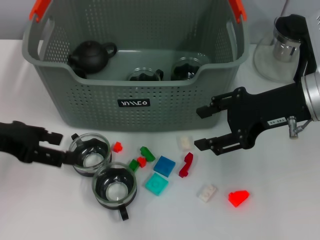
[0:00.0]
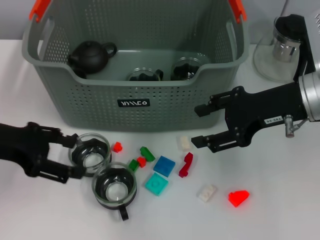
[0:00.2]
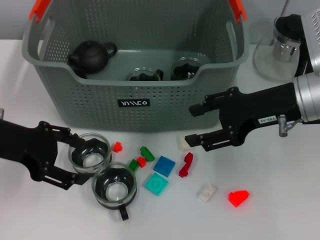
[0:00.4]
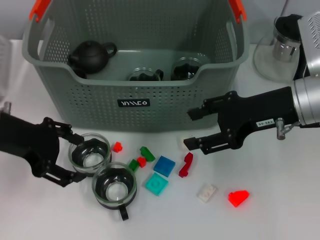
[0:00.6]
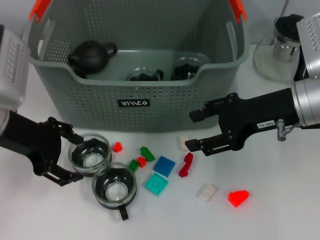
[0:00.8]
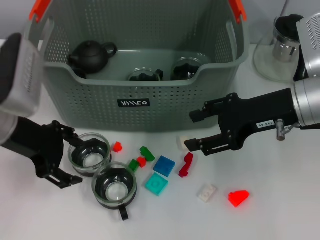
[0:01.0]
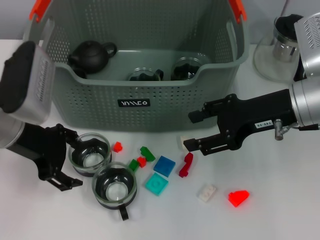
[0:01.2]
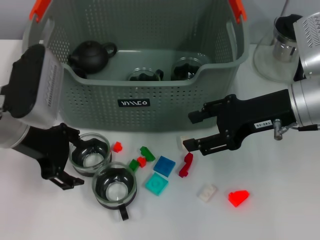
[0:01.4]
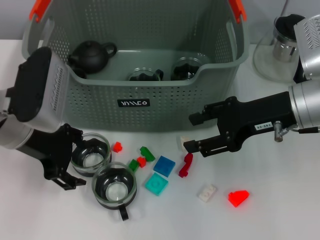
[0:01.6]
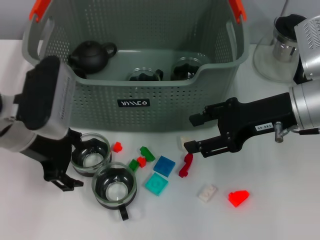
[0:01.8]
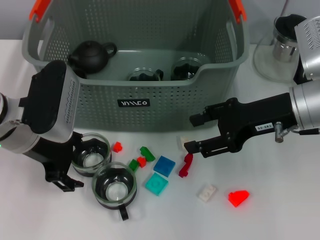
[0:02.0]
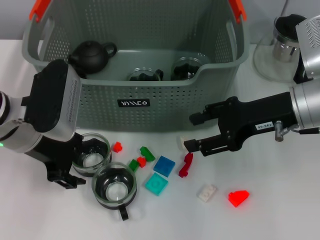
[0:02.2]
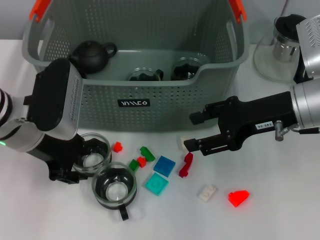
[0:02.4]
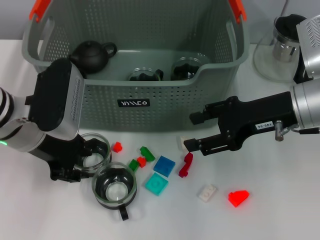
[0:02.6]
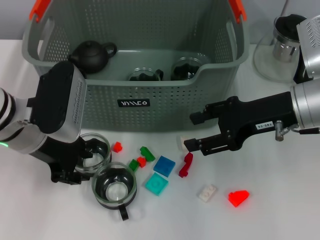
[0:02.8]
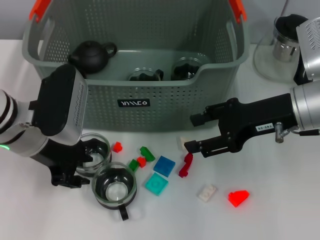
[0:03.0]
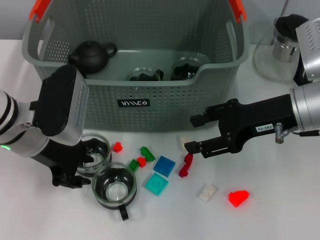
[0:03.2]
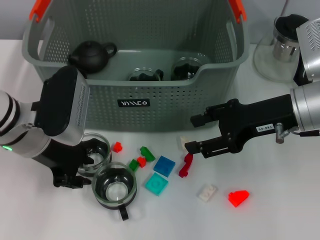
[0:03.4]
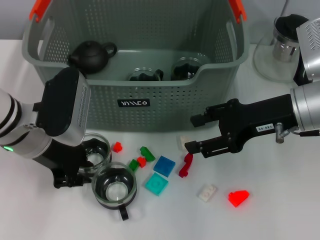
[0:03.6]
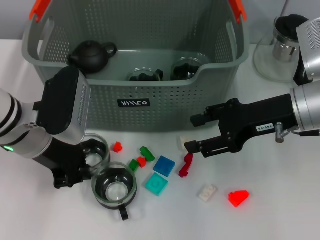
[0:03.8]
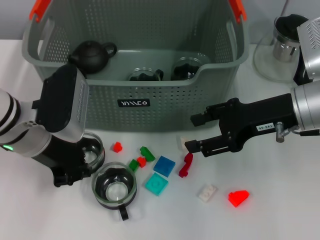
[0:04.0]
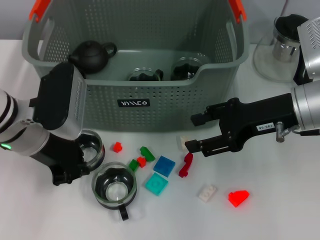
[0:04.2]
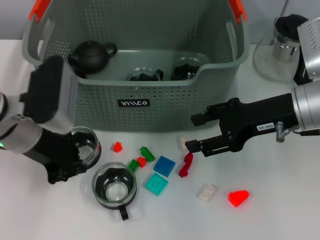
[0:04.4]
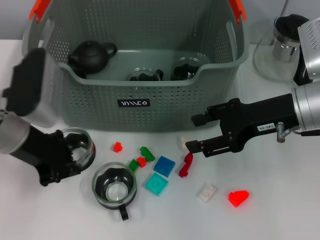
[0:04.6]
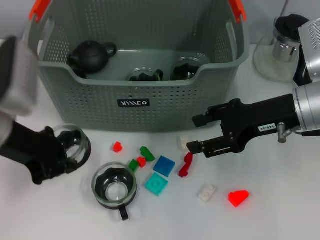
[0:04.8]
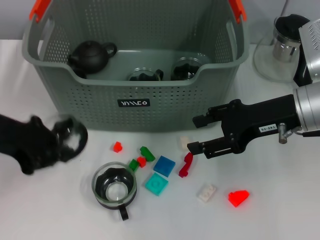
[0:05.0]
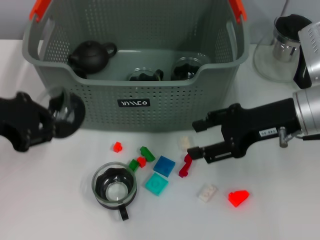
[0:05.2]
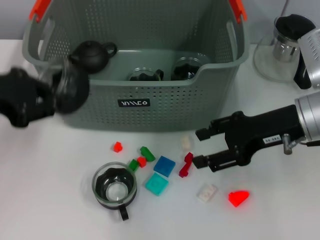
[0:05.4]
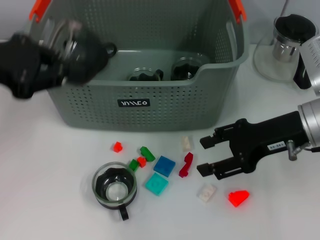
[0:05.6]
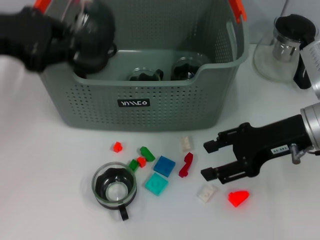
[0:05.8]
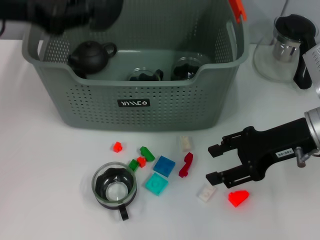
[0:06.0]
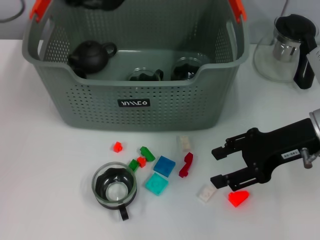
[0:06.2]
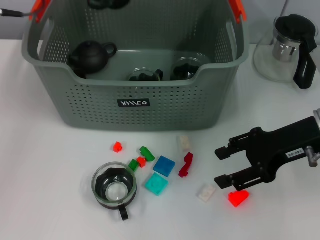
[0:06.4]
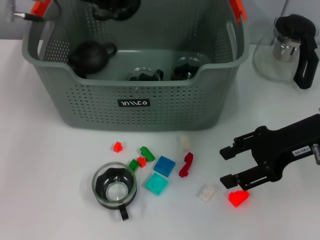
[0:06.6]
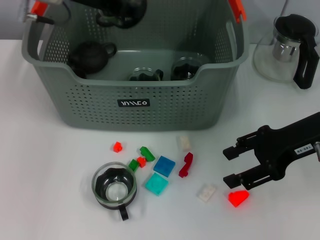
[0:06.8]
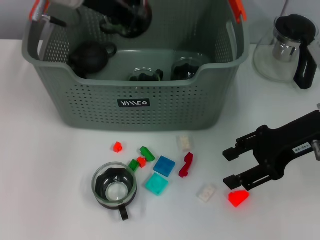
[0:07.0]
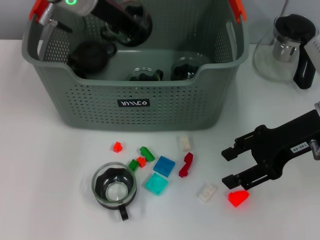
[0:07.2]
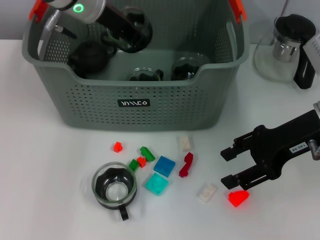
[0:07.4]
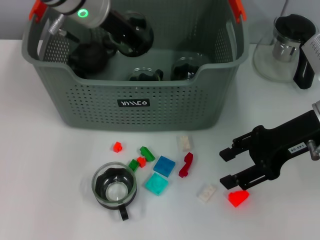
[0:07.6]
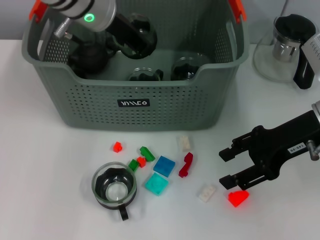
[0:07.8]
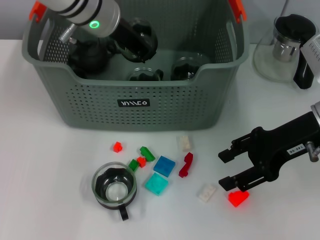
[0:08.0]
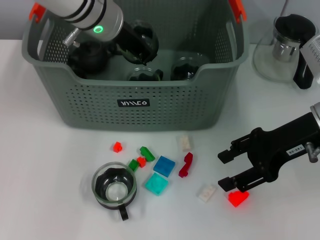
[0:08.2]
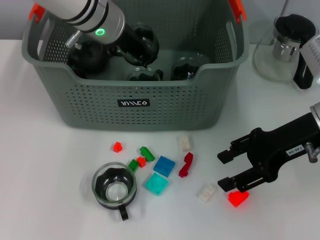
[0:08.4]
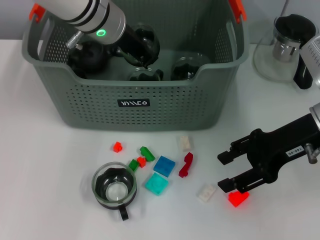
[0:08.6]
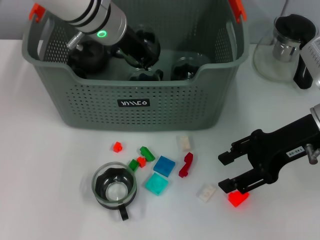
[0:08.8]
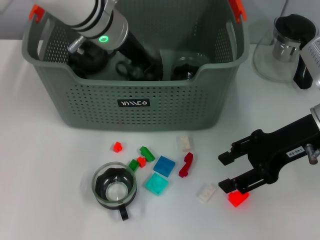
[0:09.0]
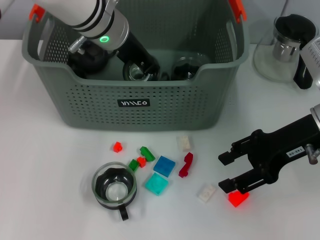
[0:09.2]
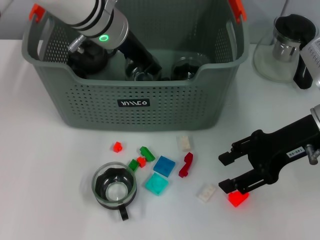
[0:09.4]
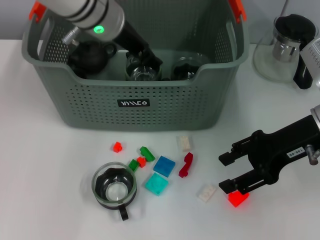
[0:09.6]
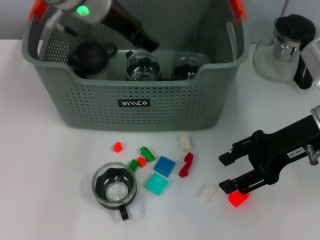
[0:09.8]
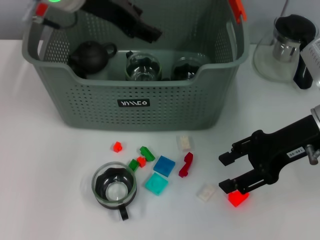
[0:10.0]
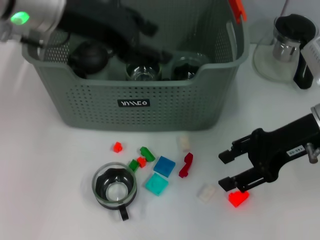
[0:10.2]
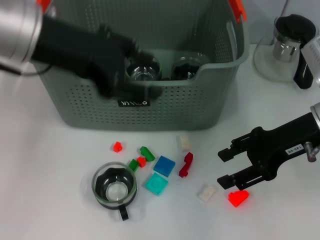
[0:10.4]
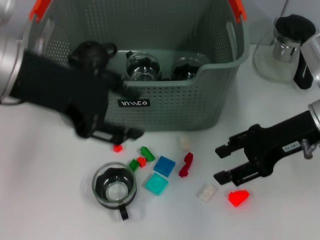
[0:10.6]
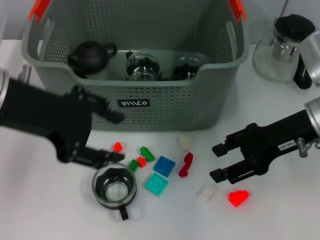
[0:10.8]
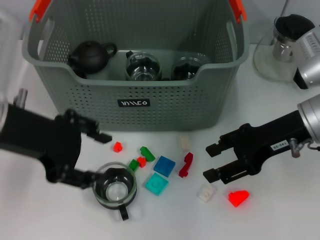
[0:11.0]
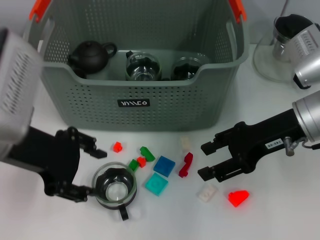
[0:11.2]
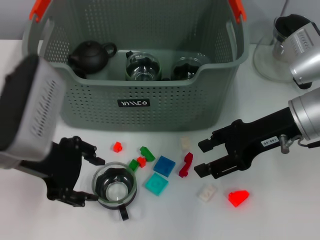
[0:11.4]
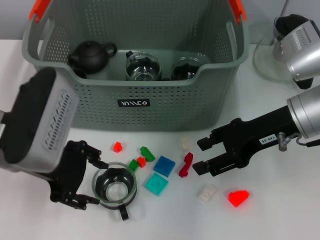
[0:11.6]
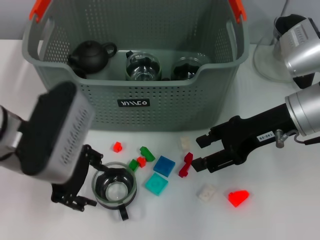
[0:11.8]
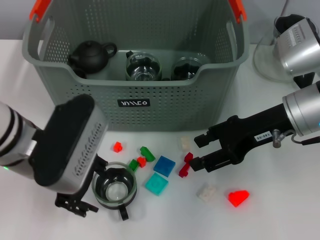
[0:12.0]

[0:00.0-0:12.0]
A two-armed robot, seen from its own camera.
Task of the whole recording: pick up the teacup on the table and place it into the storage bin, pick up the block on the table and place it into the storage bin.
Step, 0:00.0 to 0:04.0: Grasp the cup with left gripper.
Step, 0:04.2 to 0:09.6: Place the cup in the storage box with left gripper.
0:00.0 to 0:01.6: The left gripper shifts approximately 10 cm to the right.
0:01.6 to 0:03.0: The left gripper closes.
0:03.0 to 0:04.4: The left gripper closes up.
0:04.4 to 0:06.0: The left gripper travels upward by some 15 cm.
0:06.0 to 0:07.6: The left gripper moves to the right, forward and downward, approximately 15 cm.
0:07.6 to 0:09.0: The grippers make only small movements.
0:09.0 to 0:10.4: The left gripper shifts about 15 cm backward, upward and to the left, and opens up.
0:10.4 to 0:12.0: The left gripper heads downward, covering some 10 cm.

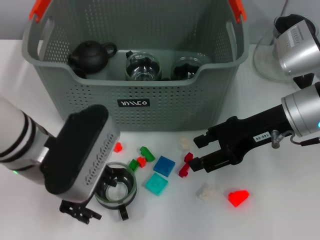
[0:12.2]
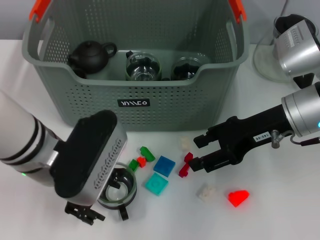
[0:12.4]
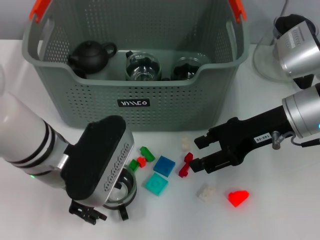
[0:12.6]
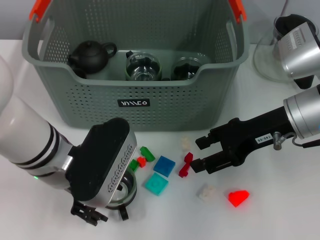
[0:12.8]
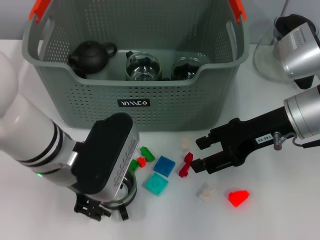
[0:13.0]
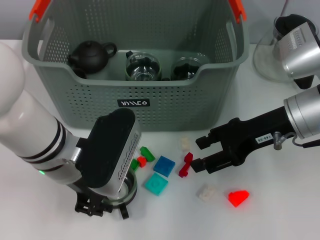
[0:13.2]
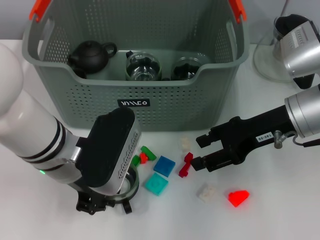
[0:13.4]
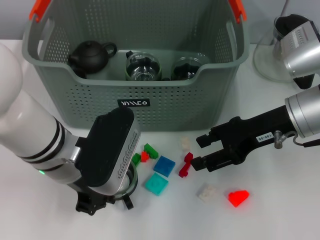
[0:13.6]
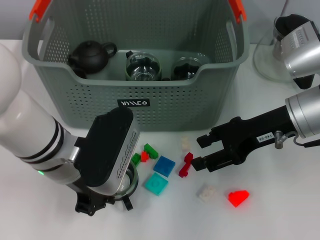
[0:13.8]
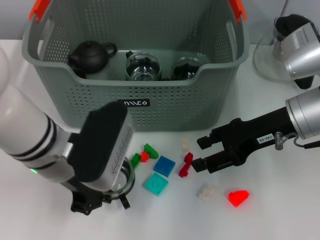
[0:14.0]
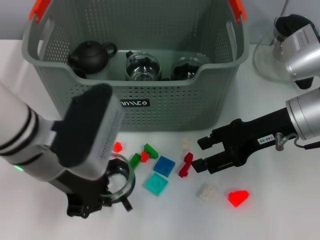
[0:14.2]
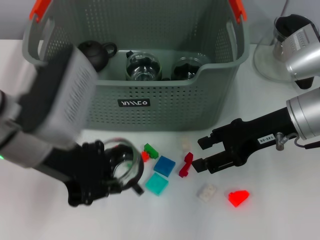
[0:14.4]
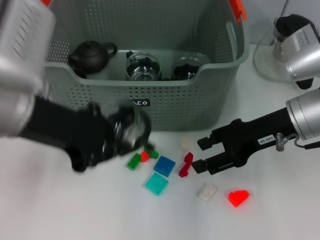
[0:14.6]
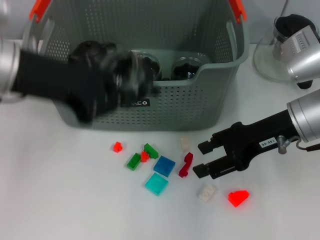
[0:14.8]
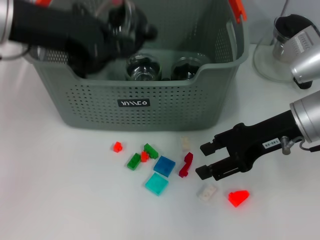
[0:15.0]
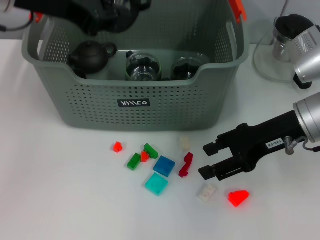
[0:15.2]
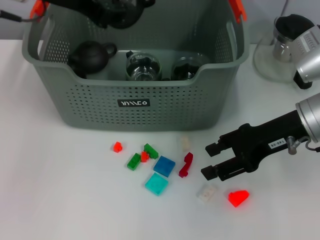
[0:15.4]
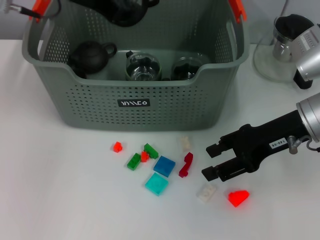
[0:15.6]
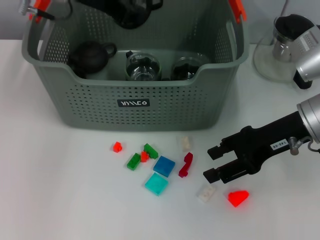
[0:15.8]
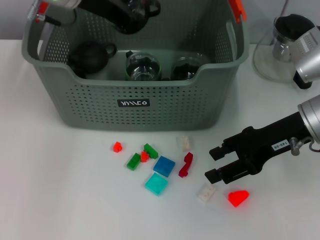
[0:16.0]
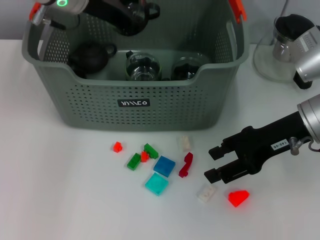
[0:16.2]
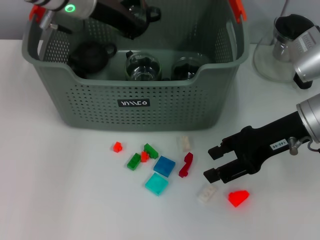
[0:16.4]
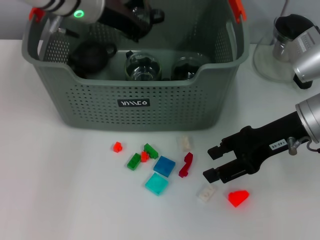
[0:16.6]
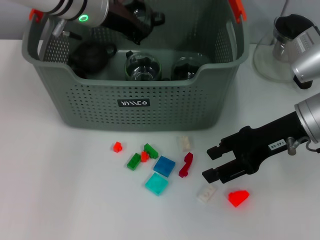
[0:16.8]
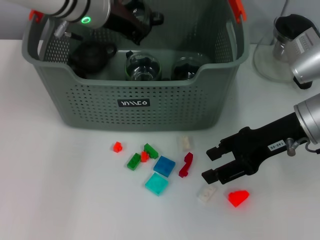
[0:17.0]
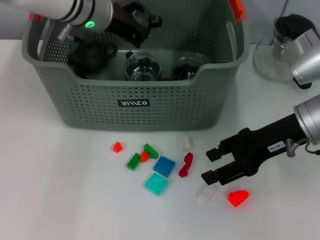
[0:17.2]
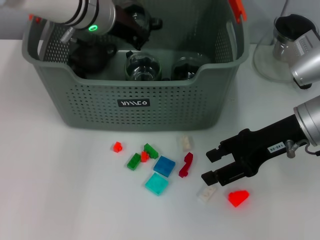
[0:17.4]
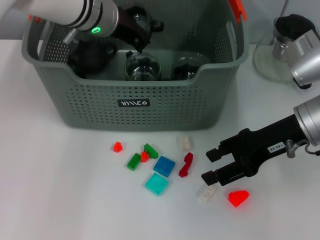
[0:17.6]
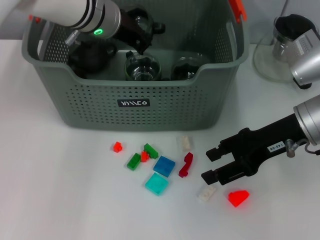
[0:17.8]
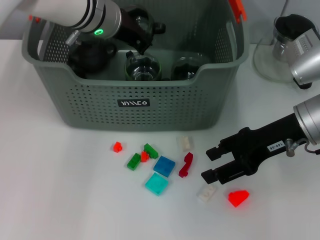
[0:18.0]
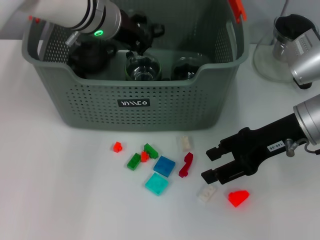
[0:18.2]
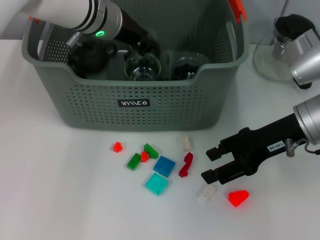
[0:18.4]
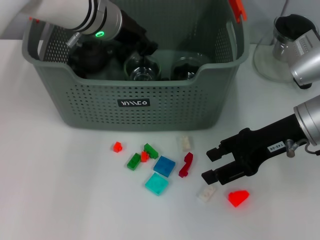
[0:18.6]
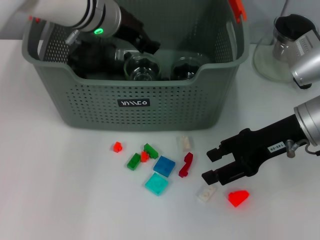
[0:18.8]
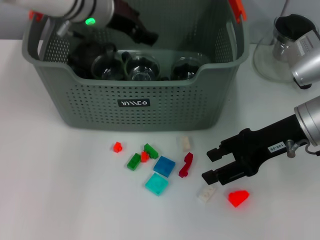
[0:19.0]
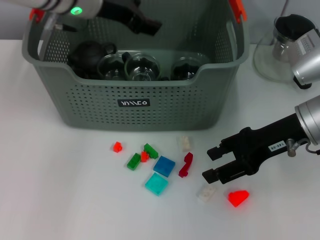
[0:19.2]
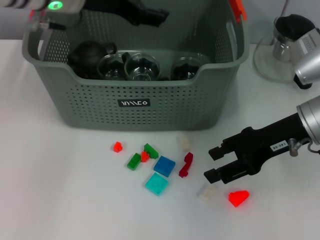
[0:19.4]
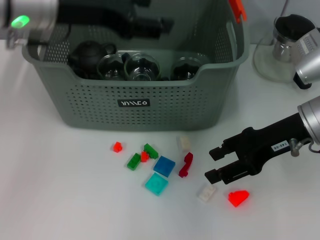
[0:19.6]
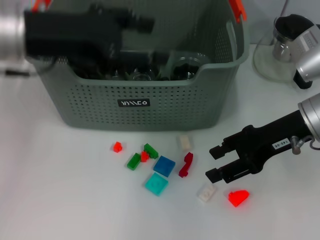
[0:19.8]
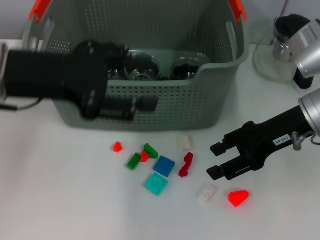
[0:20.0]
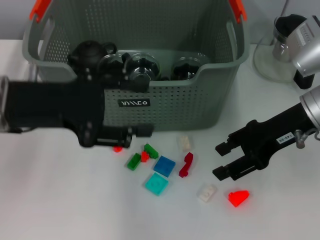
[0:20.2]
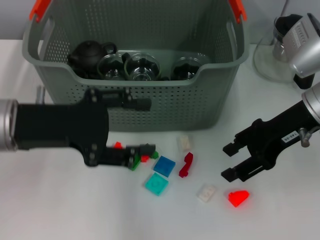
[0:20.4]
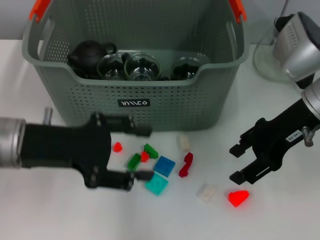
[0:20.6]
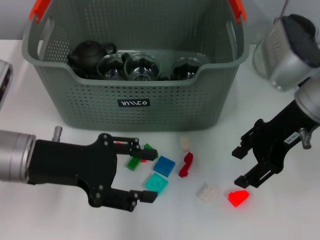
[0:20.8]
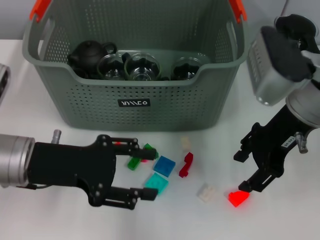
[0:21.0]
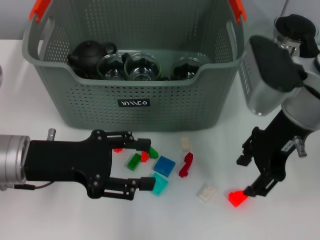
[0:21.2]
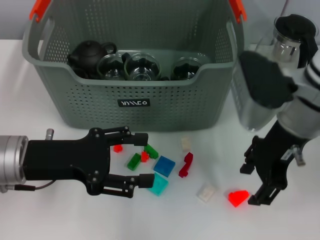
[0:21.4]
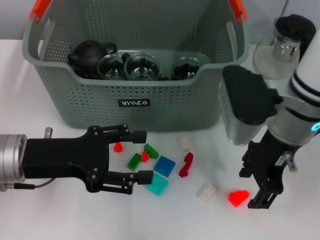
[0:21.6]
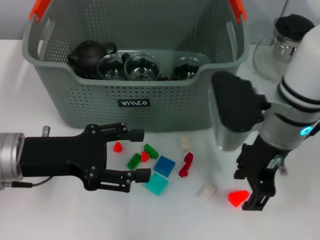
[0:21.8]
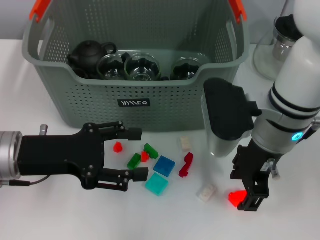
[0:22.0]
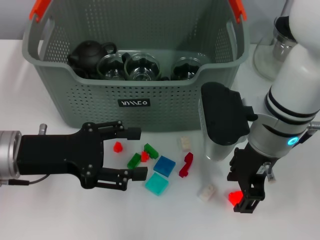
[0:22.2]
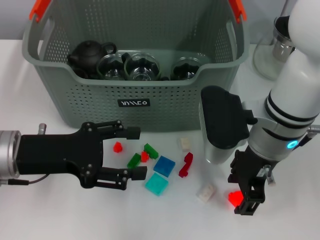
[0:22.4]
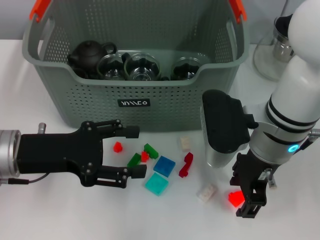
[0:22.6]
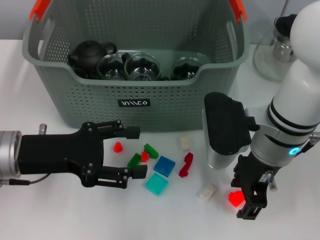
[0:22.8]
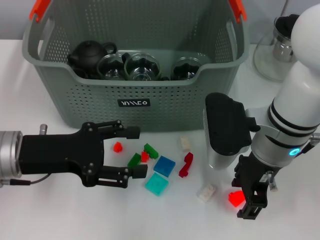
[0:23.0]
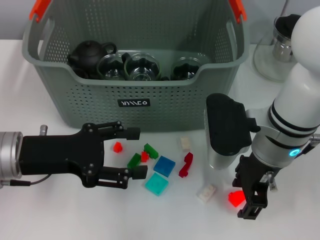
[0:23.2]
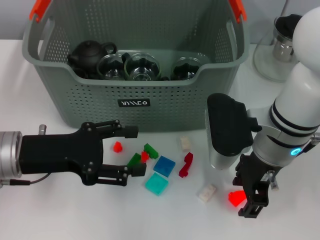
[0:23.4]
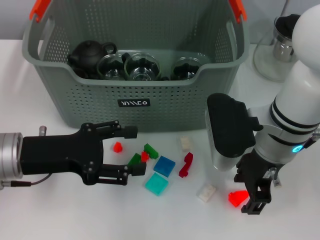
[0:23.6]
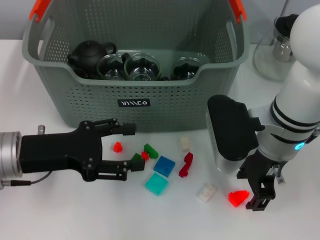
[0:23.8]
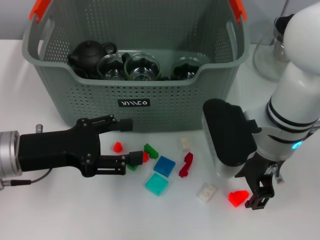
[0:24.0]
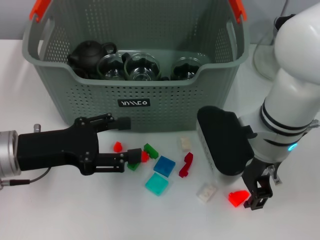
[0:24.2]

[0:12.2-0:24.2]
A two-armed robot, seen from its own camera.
Task of the whole recording: pick up the teacup on the table and place it into the storage bin, pick up the block on the table and place it into the storage bin.
Step, 0:14.0 to 0:19.0: Place the cup in the storage box with left gripper.
0:12.2 to 0:13.8: The left gripper closes its fingers.
0:13.8 to 0:15.2: The left gripper shifts approximately 20 cm upward, forward and to the left.
0:15.2 to 0:16.6: The left gripper heads forward, downward and to the right, covering about 15 cm.
0:16.6 to 0:18.2: There are only small adjustments of the grippers.
0:18.2 to 0:19.8: The left gripper moves backward, to the left and upward, some 15 cm, and opens.
0:19.8 to 0:21.2: The left gripper heads downward and backward, covering roughly 15 cm. The right gripper changes place by about 5 cm.
0:21.2 to 0:22.6: The right gripper ends up some 5 cm from where it was.
0:22.6 to 0:24.2: The grippers stay close to where they were, moving slightly.
